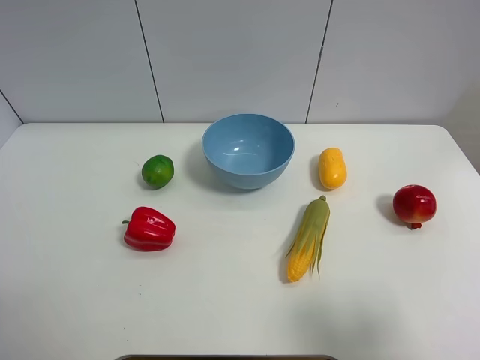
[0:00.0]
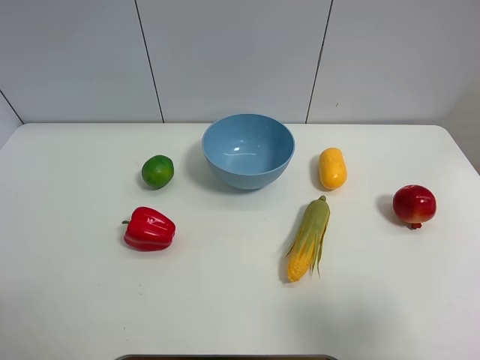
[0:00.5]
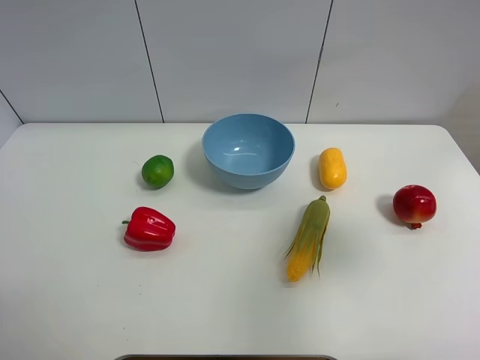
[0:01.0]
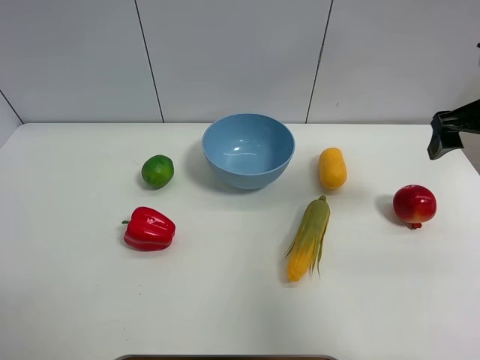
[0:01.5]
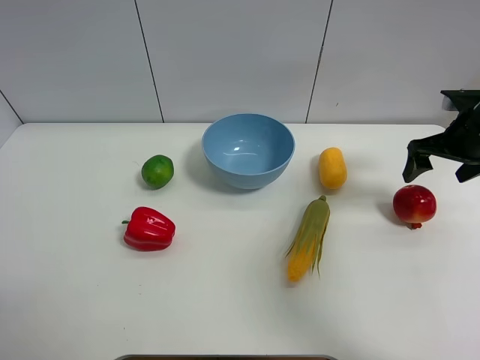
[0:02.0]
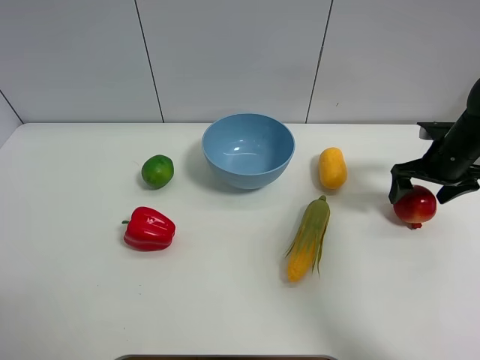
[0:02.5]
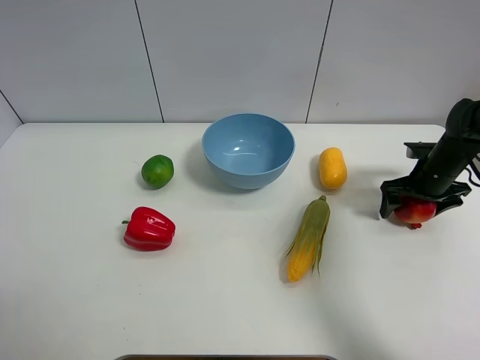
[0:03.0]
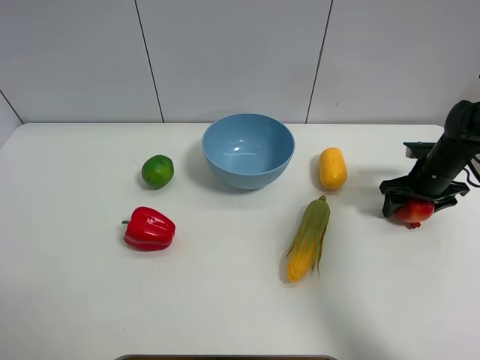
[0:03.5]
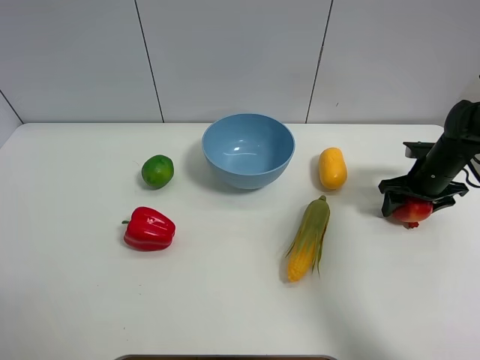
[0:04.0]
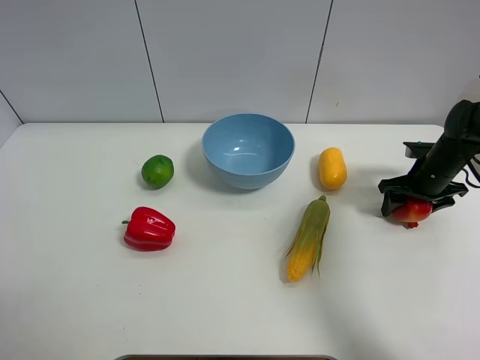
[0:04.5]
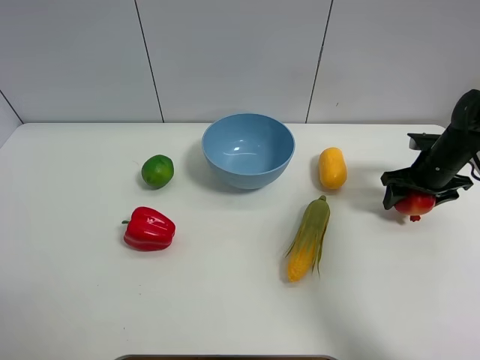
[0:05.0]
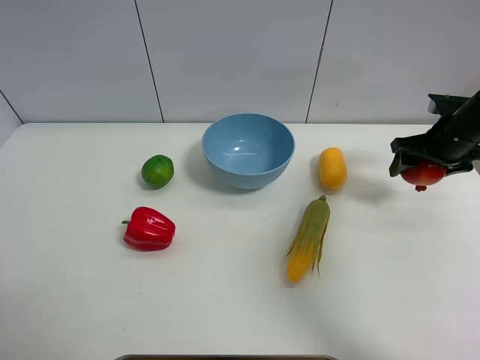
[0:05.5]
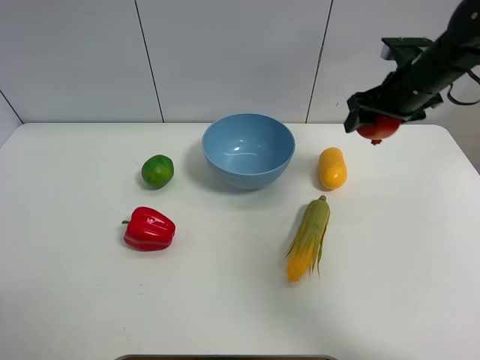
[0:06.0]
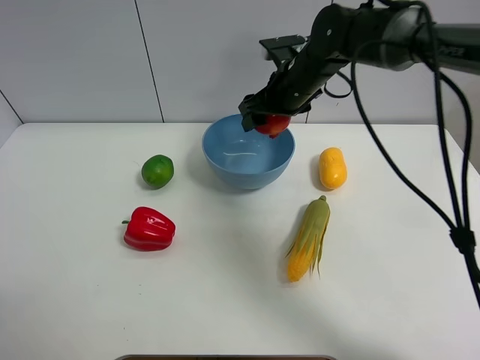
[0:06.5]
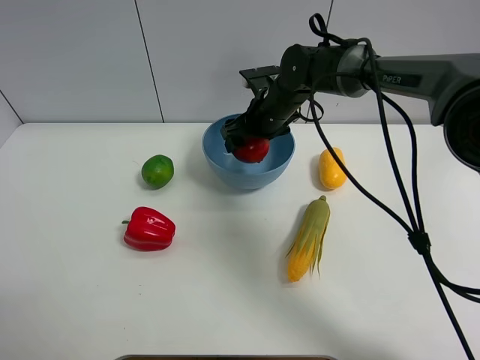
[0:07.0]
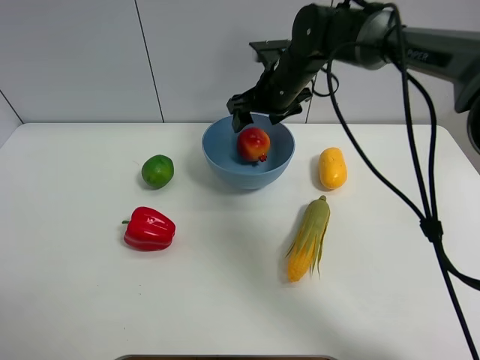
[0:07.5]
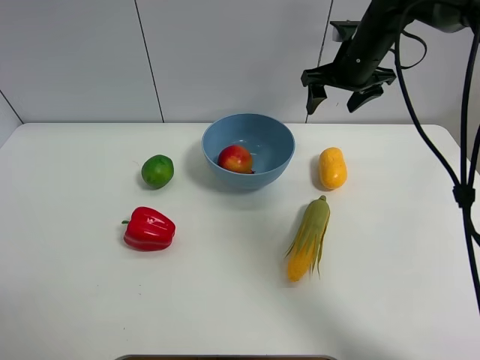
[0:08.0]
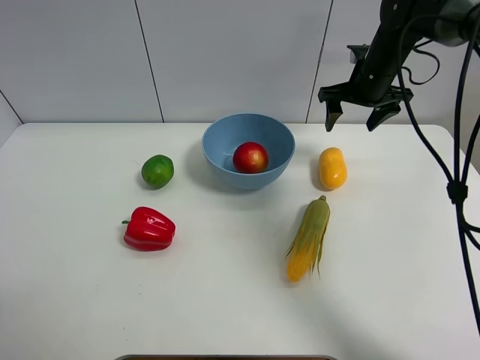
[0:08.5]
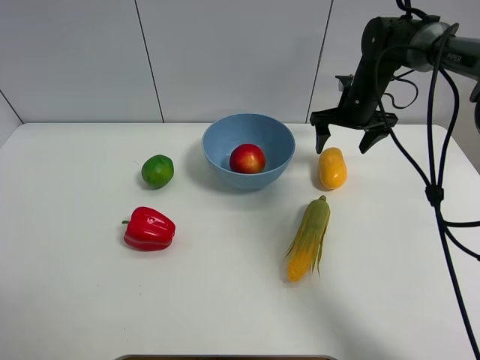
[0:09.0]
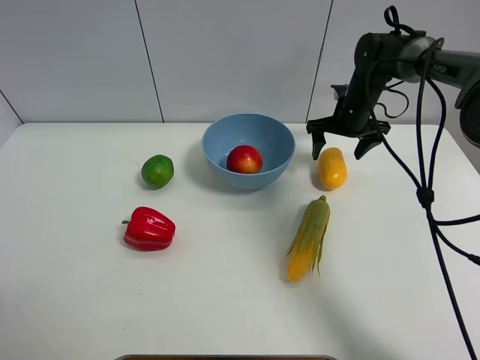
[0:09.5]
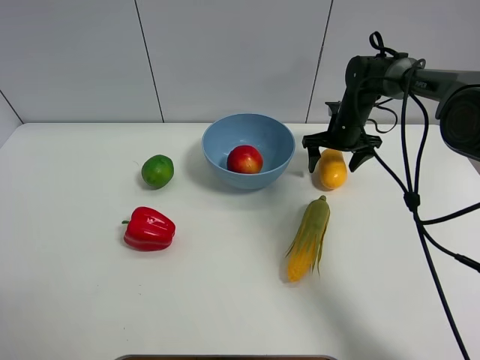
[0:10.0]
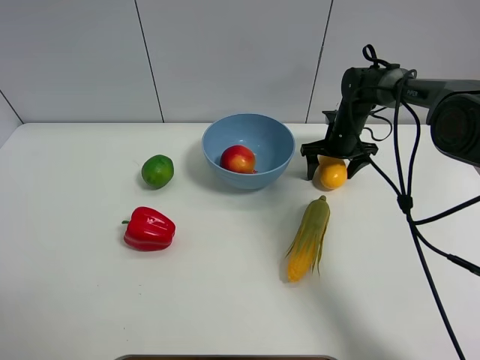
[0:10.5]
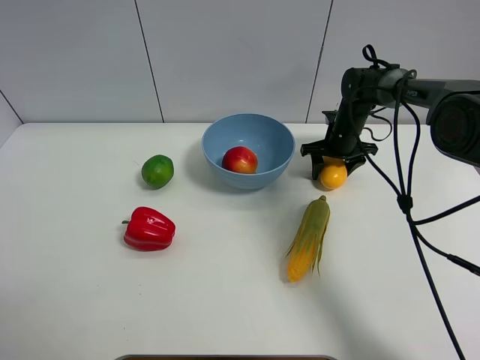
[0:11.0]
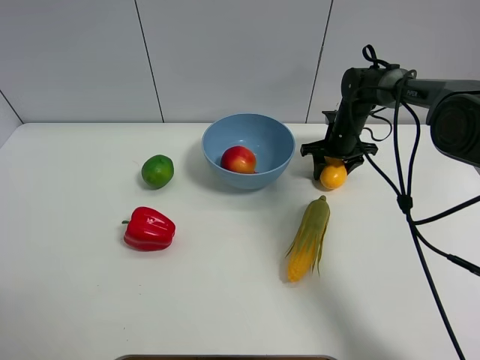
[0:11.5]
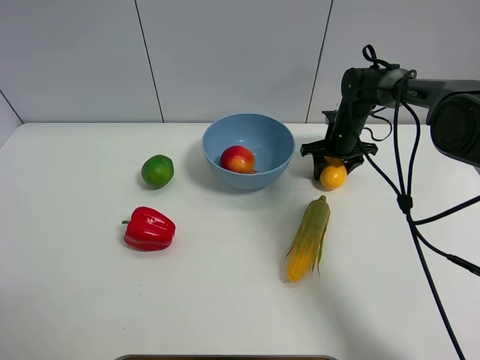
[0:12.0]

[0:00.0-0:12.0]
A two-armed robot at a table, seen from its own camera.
Task of the whole recording: Put the three fruits on the table into a bowl.
Step, 0.0 to 3.5 s: Grasp the pomegranate with right gripper.
Step, 4.0 to 7.0 s: Place the pomegranate in the blue bowl with right gripper.
Step, 7.5 to 11.0 s: Grasp the mango with right gripper.
0.0 to 2.0 s: The right gripper shifts roughly 35 cm forward.
2.0 to 4.0 s: The right gripper travels downward by about 10 cm, and closes up.
4.0 to 6.0 s: The right gripper travels upward and to the left by approximately 20 cm.
6.0 to 8.0 s: The right gripper travels forward by roughly 5 cm, and travels to the left and back again, some 20 cm each way.
8.0 to 10.0 s: The right gripper travels downward by approximately 15 cm.
10.0 to 12.0 s: The right gripper closes.

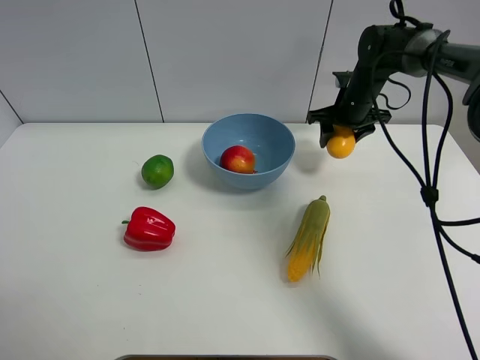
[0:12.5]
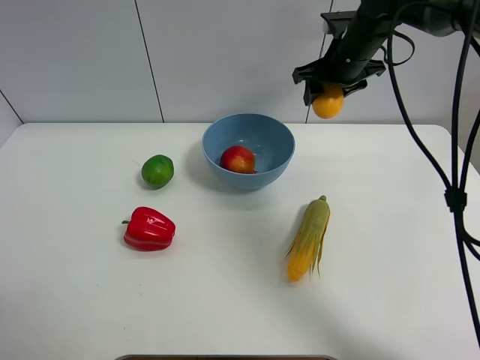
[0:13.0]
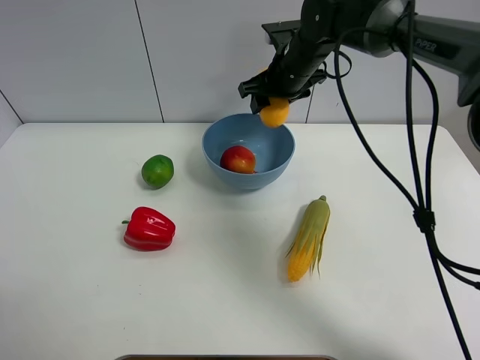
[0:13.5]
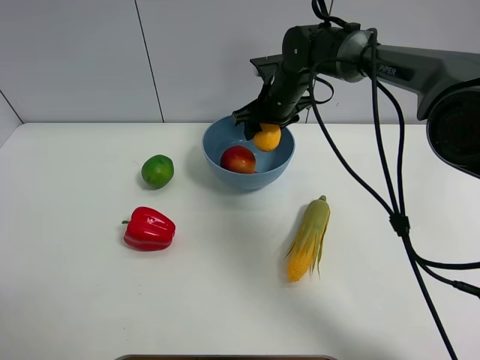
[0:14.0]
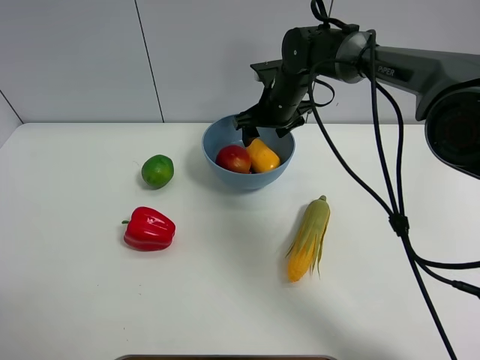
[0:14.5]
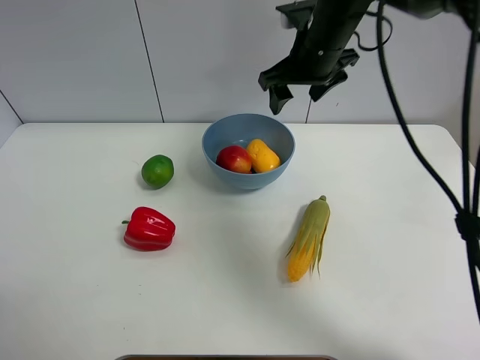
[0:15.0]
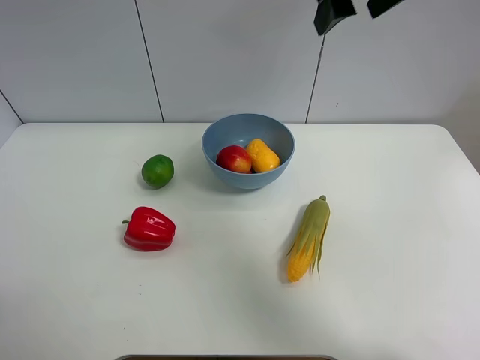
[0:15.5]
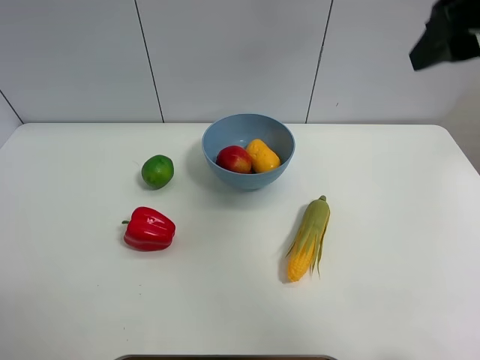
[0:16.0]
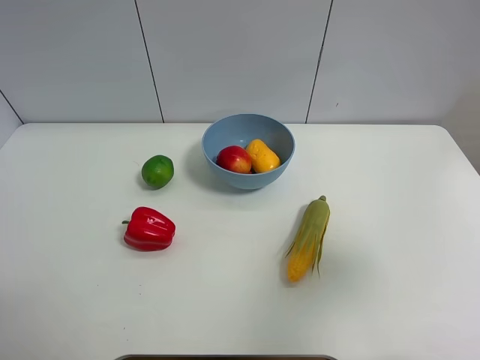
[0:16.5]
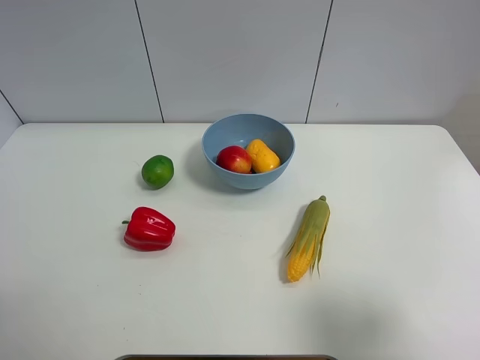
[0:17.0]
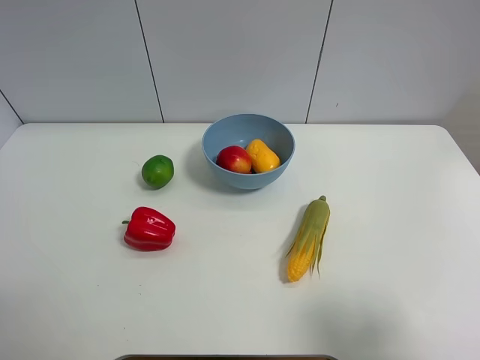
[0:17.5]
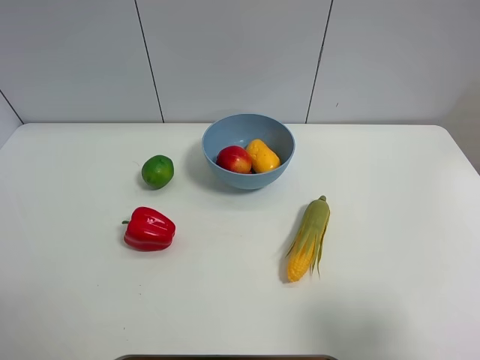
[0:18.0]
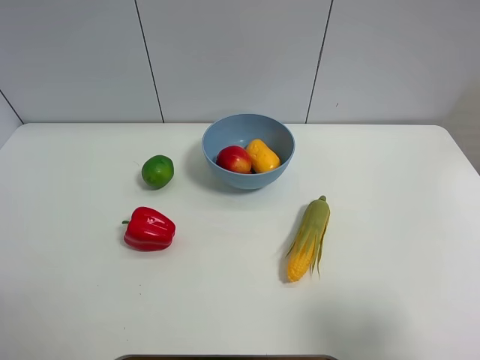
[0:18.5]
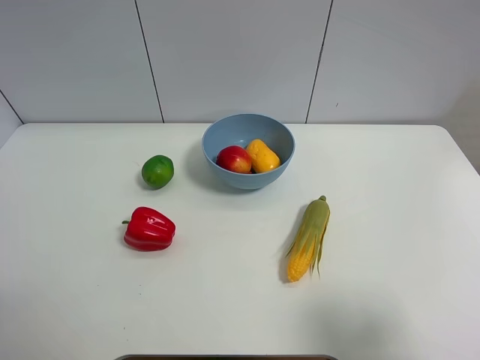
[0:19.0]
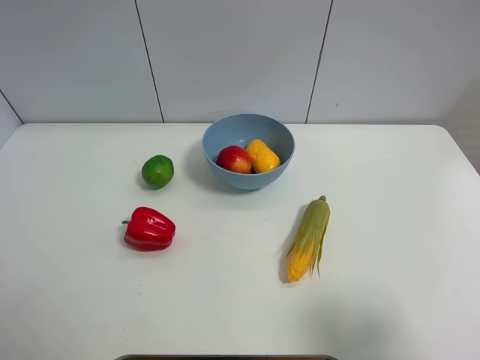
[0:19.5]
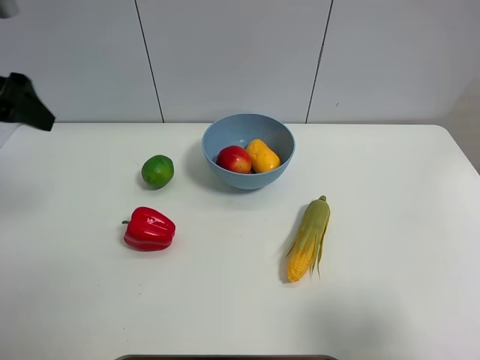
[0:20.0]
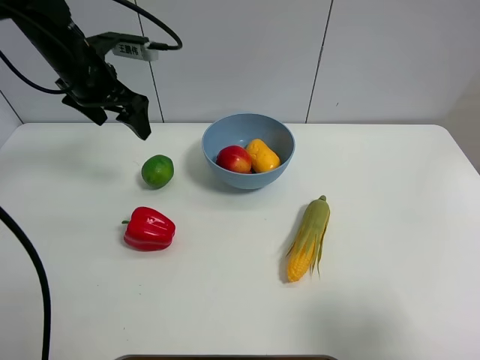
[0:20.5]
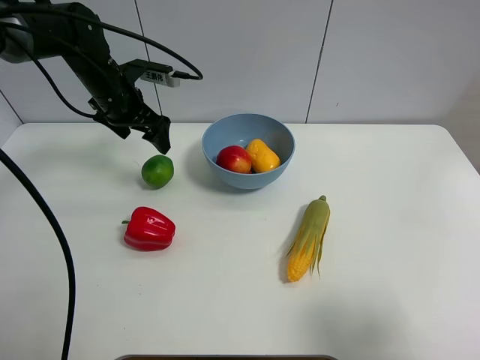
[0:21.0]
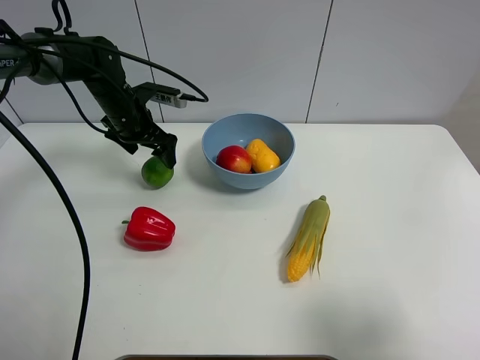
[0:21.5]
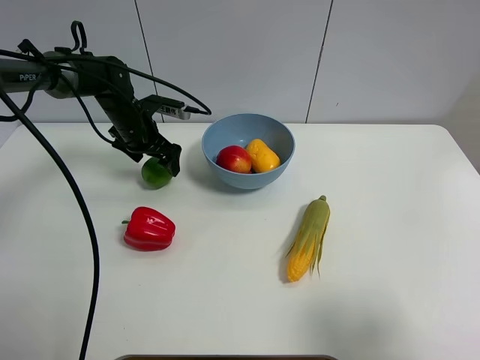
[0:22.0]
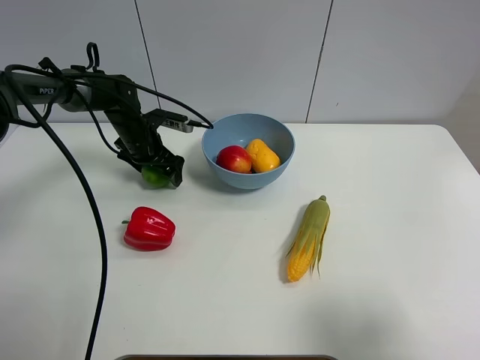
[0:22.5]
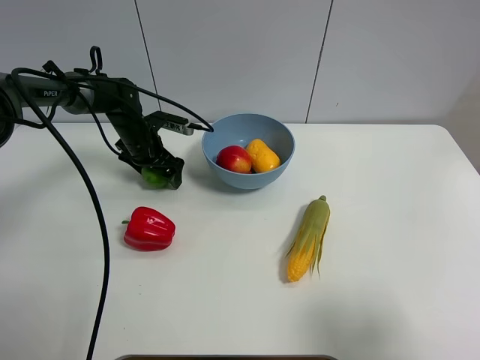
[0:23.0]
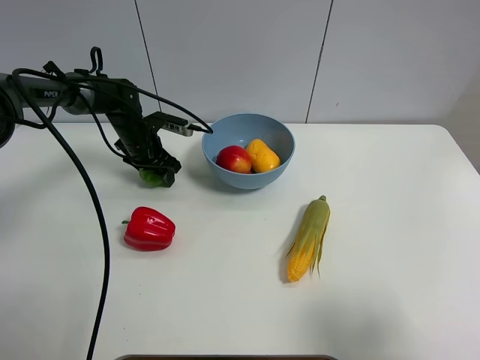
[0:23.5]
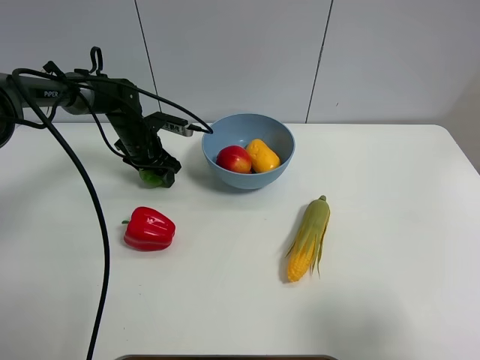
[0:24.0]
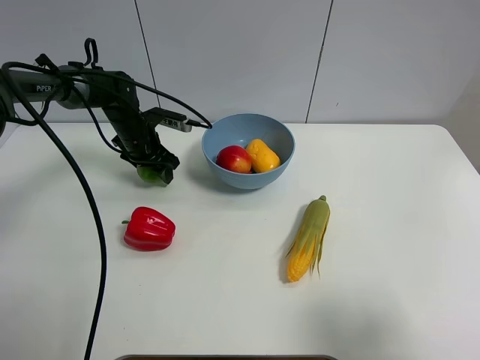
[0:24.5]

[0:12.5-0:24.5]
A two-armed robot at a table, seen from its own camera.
Task of the whole recording: Put the three fruits on the table into a bowl.
Step, 12.5 to 14.5 s: Place the mango in the blue bowl with right gripper.
Step, 15.0 to 23.0 s: Grasp the green lemon with left gripper.
12.5 to 14.5 s: The right gripper shifts roughly 15 cm to the left, and opens up.
14.5 to 16.5 s: The right gripper is displaced backward, to the right and upward by approximately 50 cm.
16.5 to 18.5 s: The right gripper moves downward and backward, some 10 cm.
18.5 to 20.5 s: The left gripper moves forward, about 40 cm.
20.5 to 22.5 s: The left gripper moves downward, some 15 cm.
22.5 to 24.5 s: The left gripper closes up.

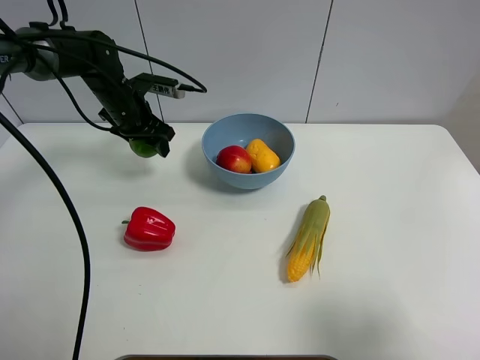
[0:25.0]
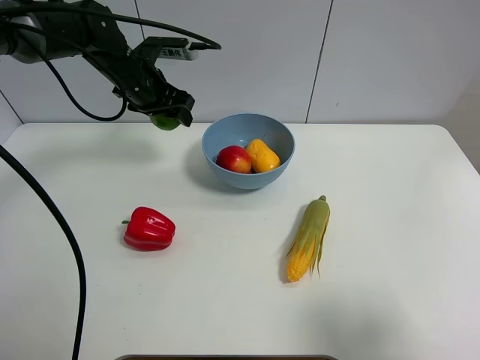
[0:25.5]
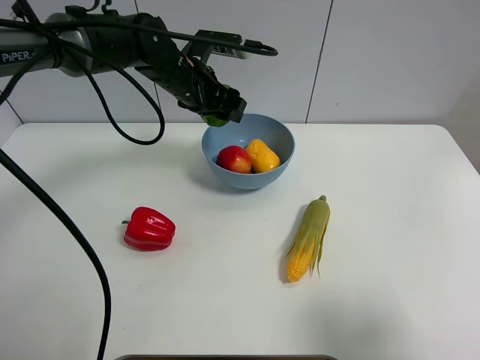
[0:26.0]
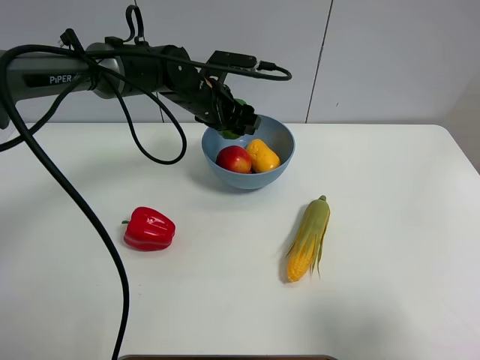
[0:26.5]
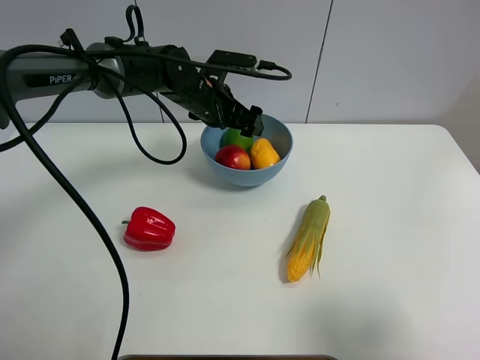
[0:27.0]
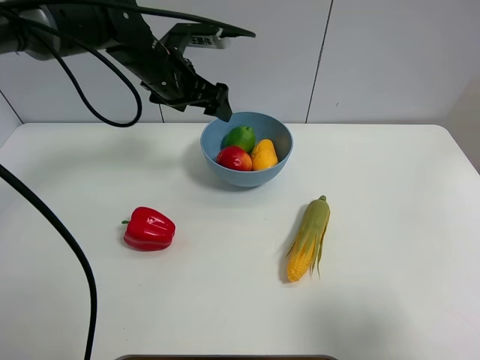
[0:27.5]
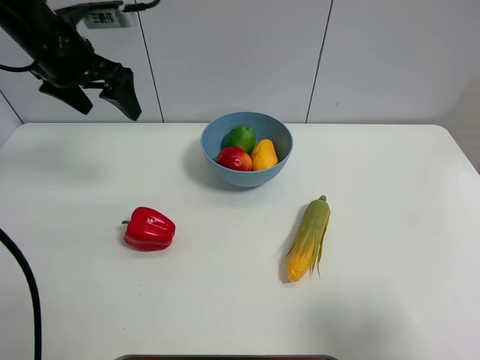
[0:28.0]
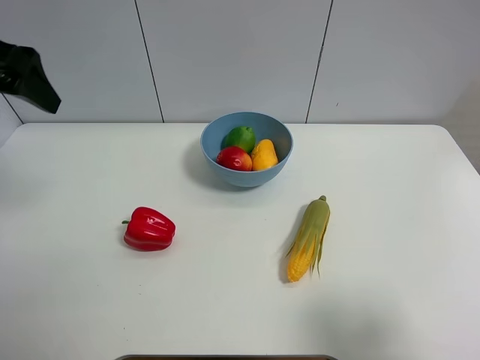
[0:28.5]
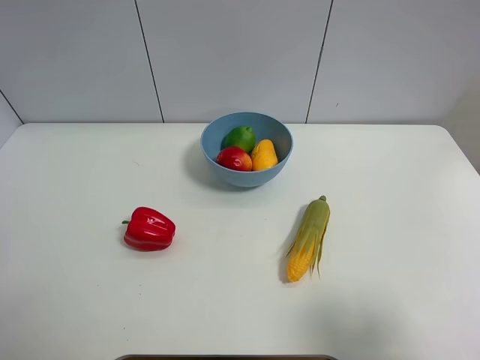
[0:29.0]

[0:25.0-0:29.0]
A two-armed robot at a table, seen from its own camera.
Task of the whole recording: Put the three fruits on the table into a bowl.
Step, 25.0 to 27.0 s: Place the green lemon in the blue bowl with left gripper.
25.0 to 27.0 s: The left gripper moves to the right, approximately 15 cm, and opens up.
27.0 to 29.0 s: The left gripper is displaced backward, to the left and upward by approximately 40 cm.
